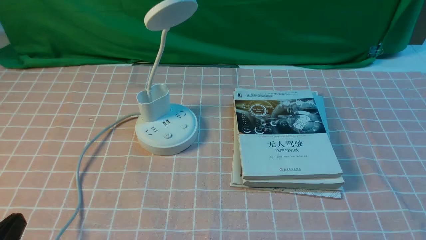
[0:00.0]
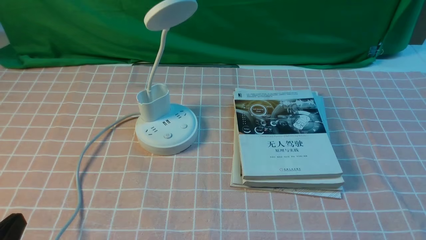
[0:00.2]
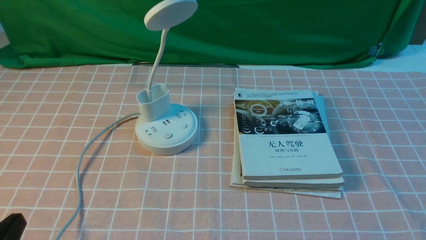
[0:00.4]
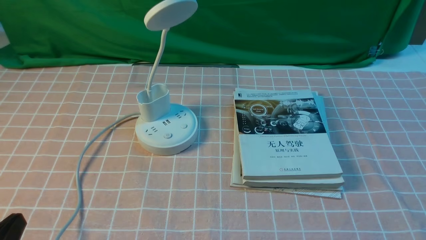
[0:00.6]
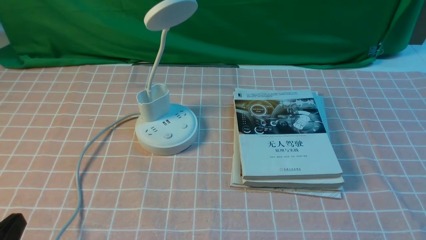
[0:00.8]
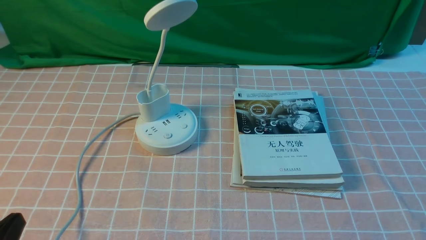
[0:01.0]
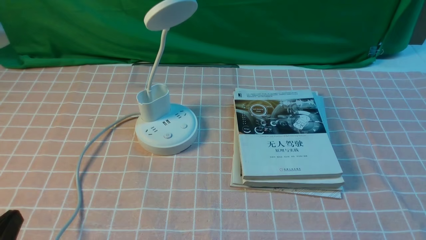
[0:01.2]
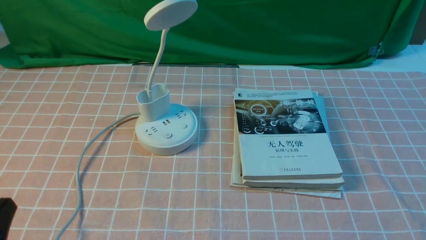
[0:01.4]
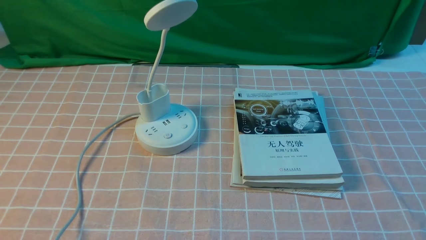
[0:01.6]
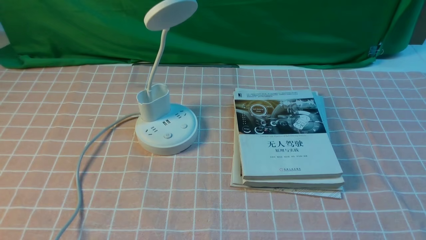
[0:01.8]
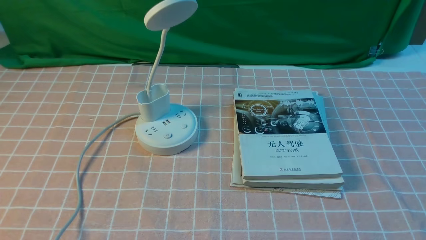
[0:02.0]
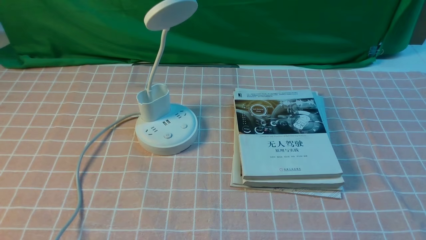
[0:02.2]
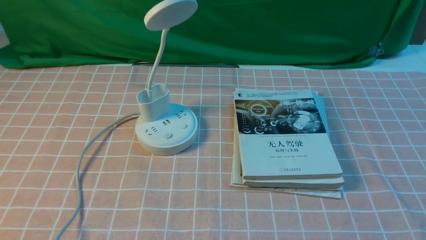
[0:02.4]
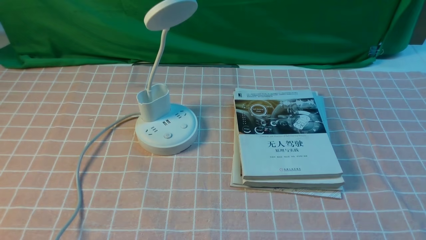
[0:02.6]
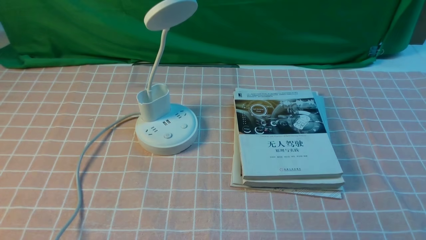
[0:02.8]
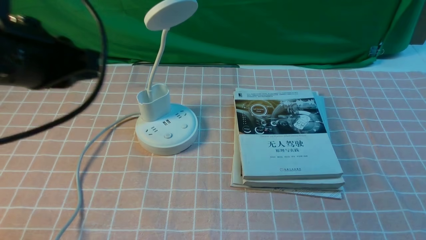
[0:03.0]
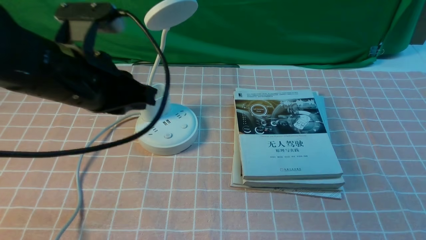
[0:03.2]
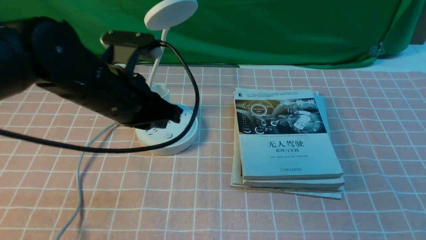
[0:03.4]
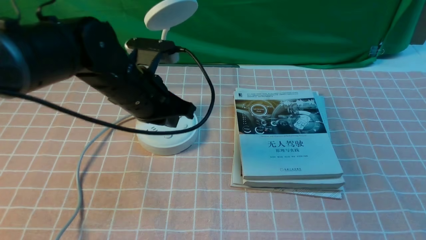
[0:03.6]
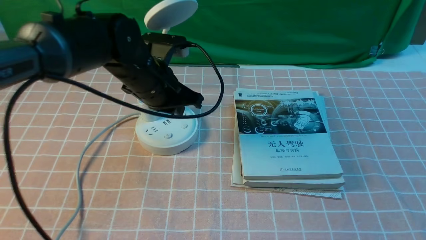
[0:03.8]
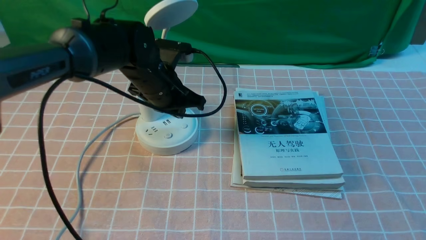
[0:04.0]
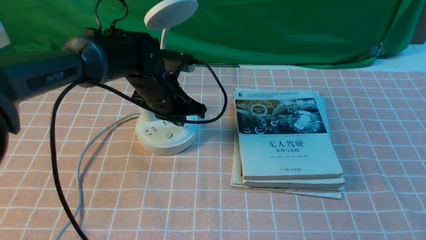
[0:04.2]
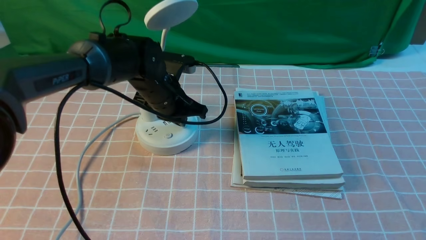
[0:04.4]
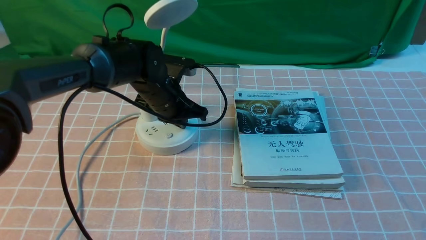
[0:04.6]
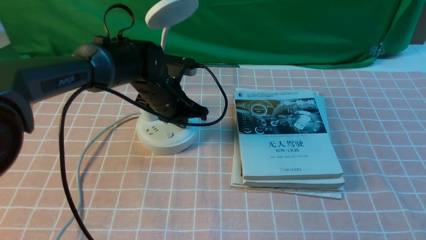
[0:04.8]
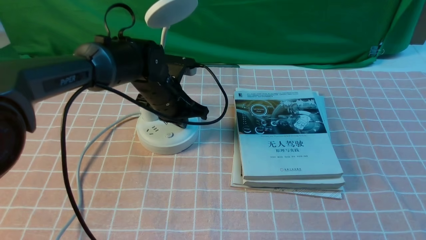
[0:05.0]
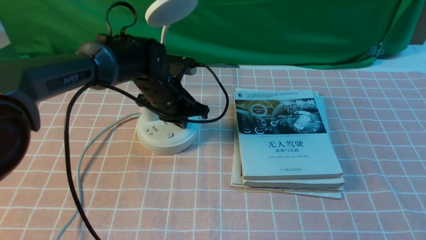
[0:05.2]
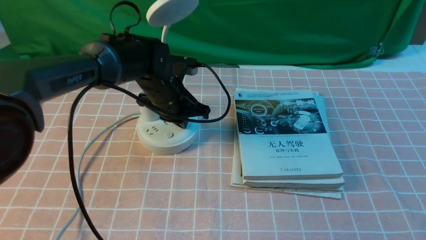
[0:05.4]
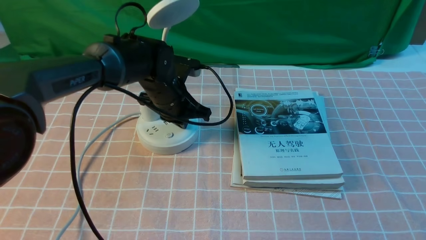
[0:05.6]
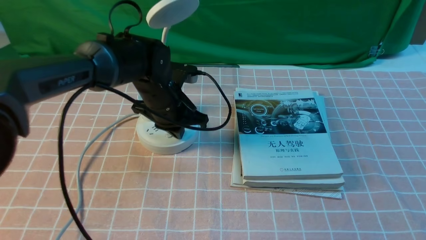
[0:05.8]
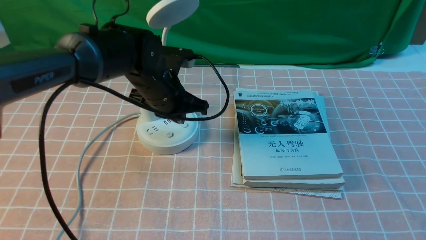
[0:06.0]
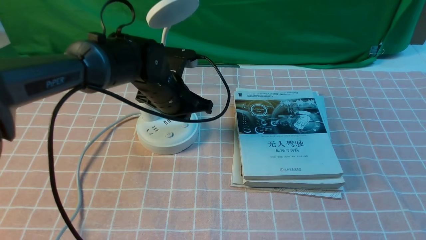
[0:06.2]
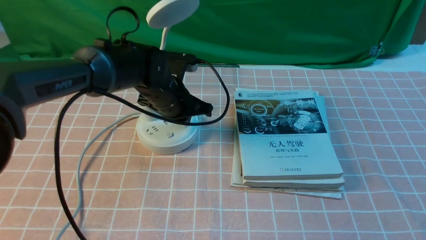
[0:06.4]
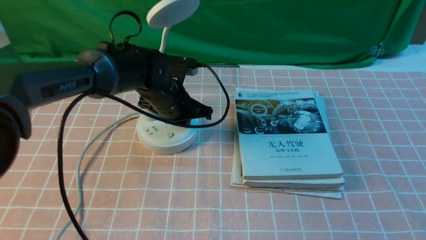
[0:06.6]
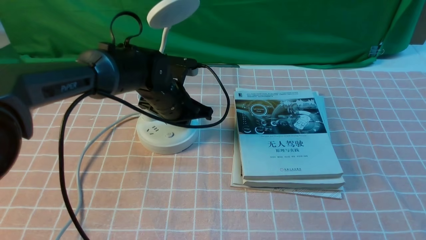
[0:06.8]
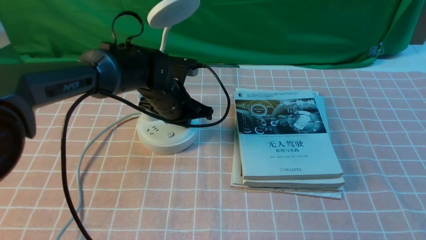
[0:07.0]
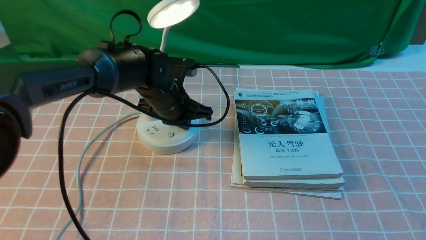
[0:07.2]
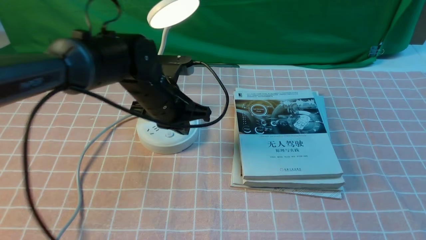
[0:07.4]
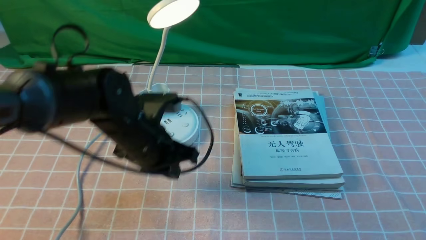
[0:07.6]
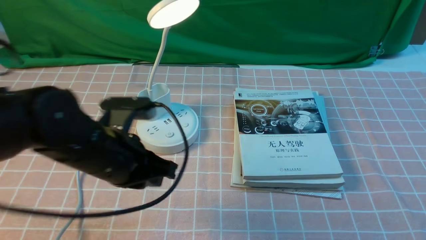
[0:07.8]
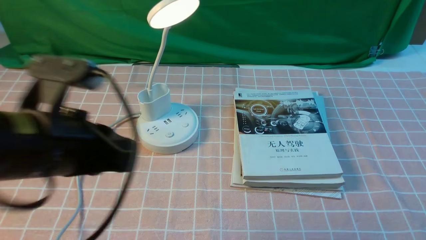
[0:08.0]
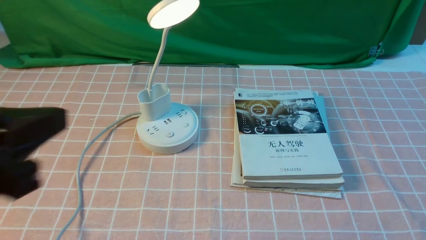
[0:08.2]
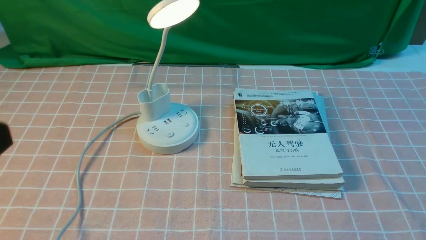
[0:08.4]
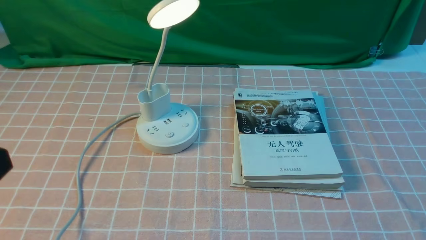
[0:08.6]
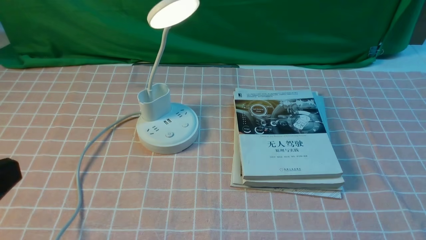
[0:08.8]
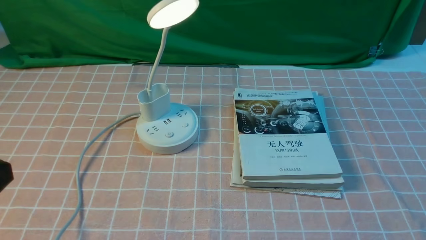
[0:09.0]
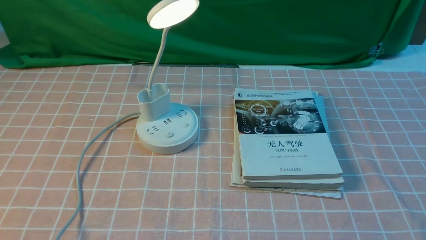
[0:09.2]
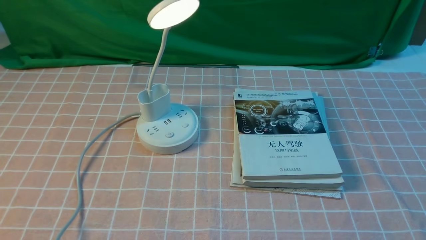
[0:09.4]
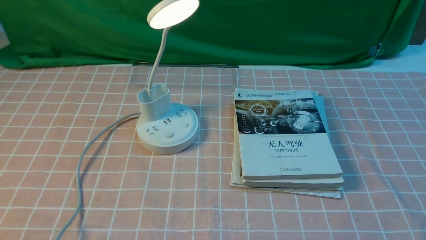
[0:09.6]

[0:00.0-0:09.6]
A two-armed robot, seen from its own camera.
Step, 0:00.0 to 0:07.4: use the left arm to press the button switch on the lamp holder.
0:01.6 to 0:03.2: The left gripper travels forward, to the right and upward by approximately 25 cm, and closes up.
0:03.2 to 0:04.8: The left gripper moves downward, forward and to the right, some 20 cm.
0:04.8 to 0:06.4: There are only small adjustments of the grippers.
0:06.4 to 0:08.0: The left gripper goes some 30 cm backward, upward and to the left, and opens its fingers.
0:08.0 to 0:09.6: The left gripper moves backward, to the left and downward, some 15 cm, and opens its fingers.

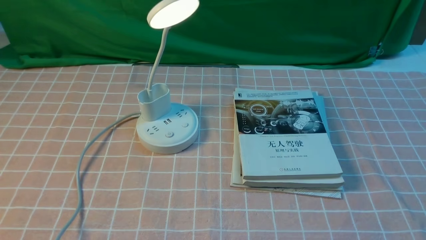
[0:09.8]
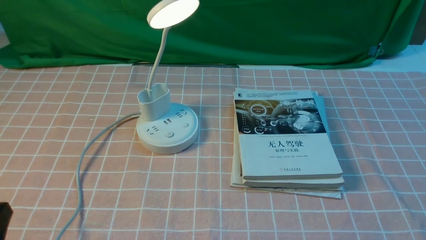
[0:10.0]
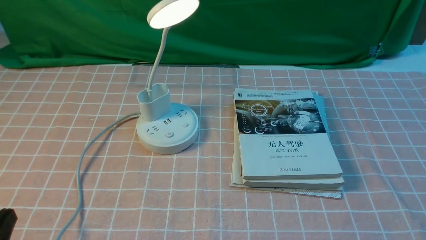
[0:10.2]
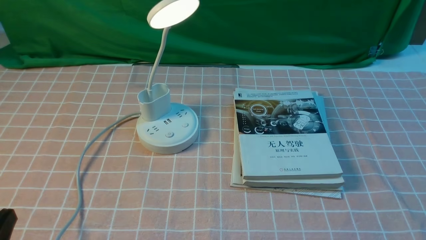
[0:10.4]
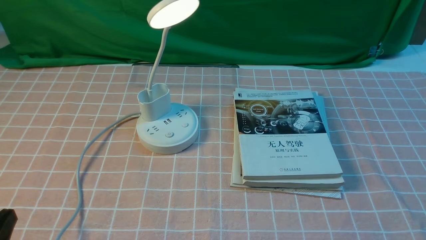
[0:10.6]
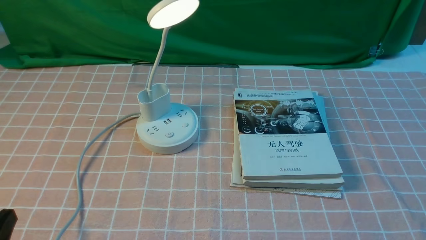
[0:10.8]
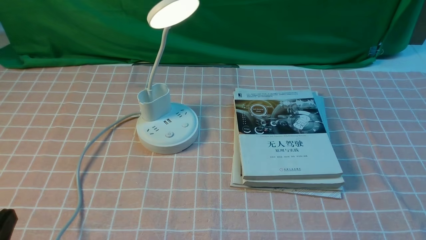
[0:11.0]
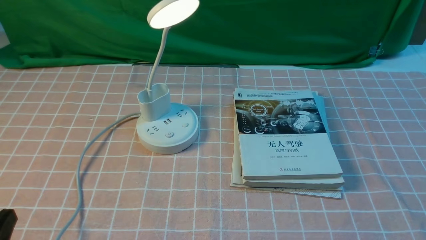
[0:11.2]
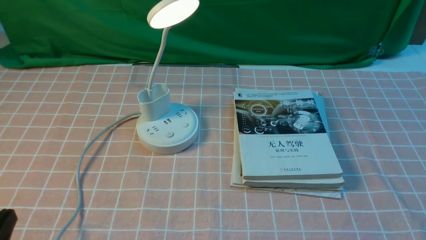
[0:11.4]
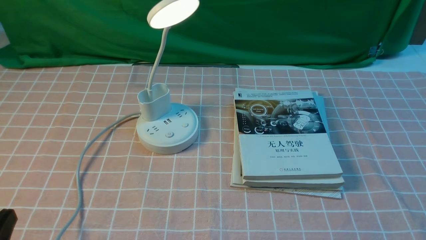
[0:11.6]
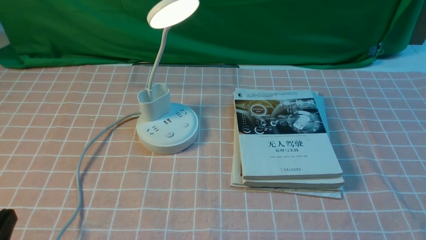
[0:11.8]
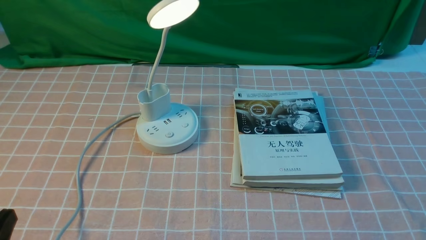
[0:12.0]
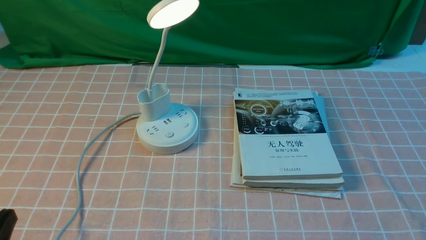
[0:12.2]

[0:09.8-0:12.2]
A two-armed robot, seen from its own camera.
0:11.0 to 0:12.2: Both grippers stay about where they are.
